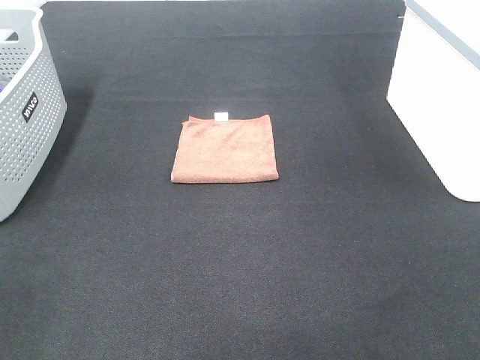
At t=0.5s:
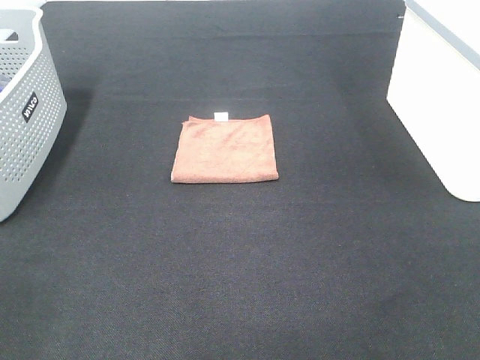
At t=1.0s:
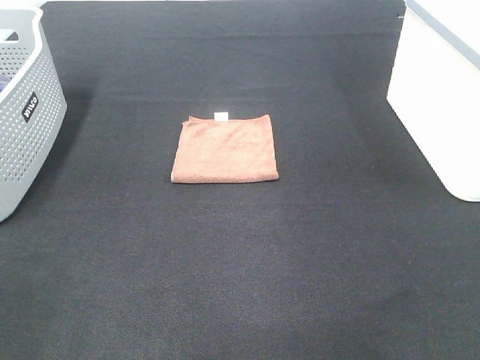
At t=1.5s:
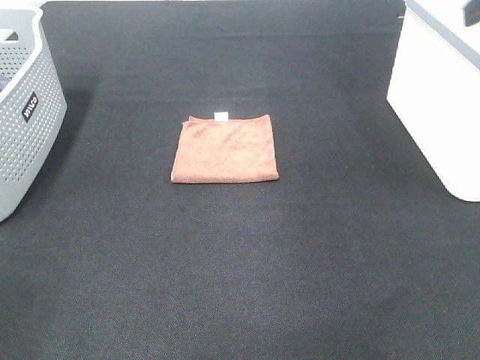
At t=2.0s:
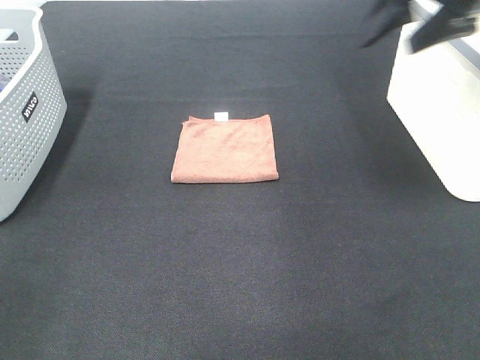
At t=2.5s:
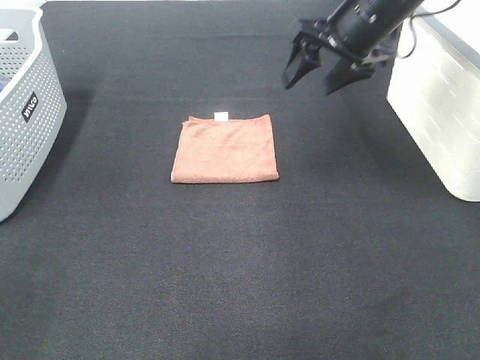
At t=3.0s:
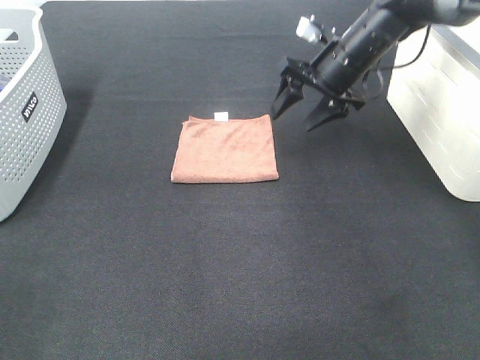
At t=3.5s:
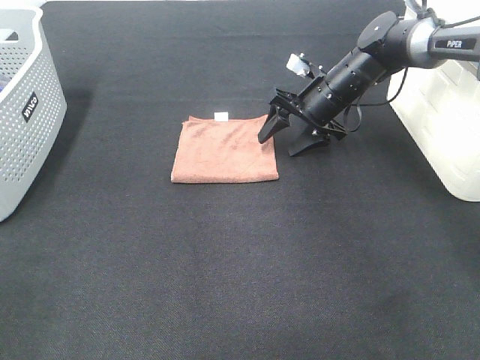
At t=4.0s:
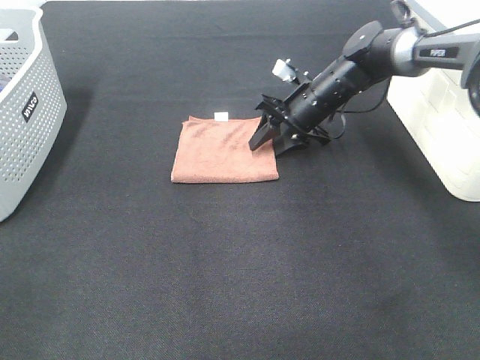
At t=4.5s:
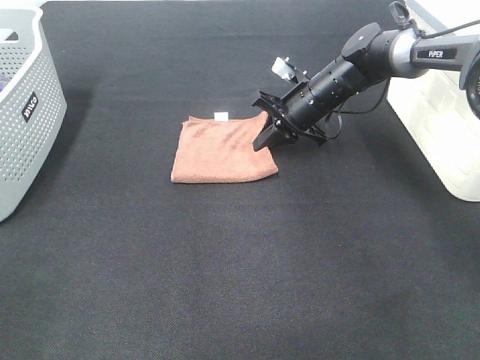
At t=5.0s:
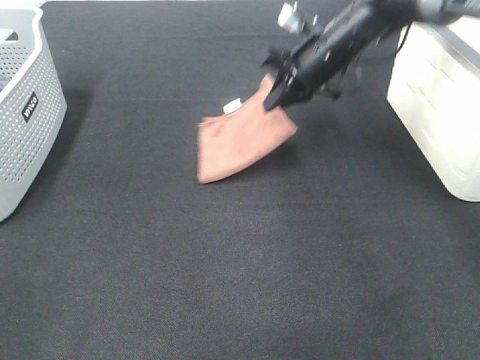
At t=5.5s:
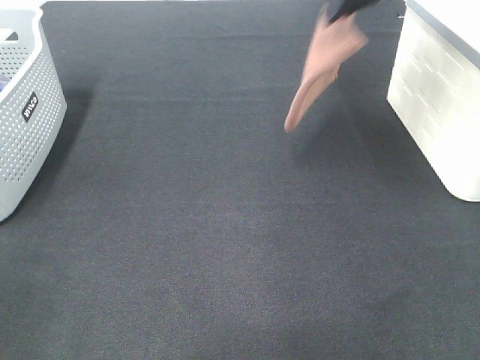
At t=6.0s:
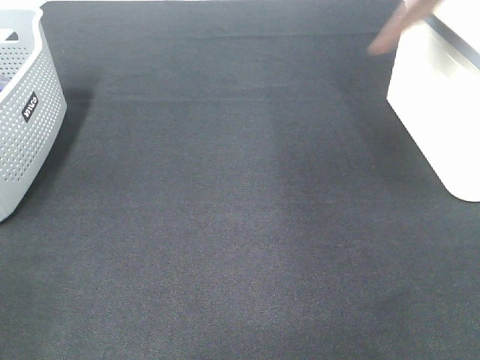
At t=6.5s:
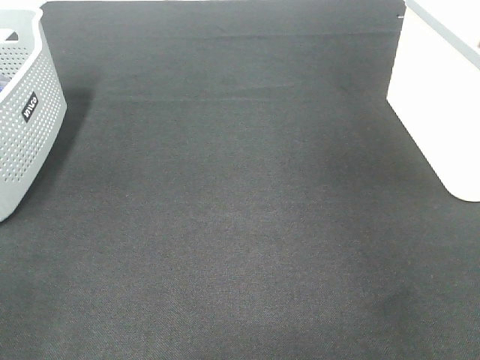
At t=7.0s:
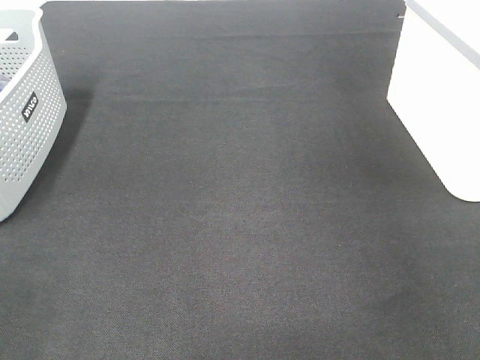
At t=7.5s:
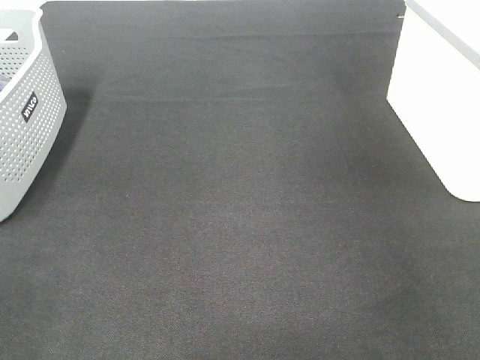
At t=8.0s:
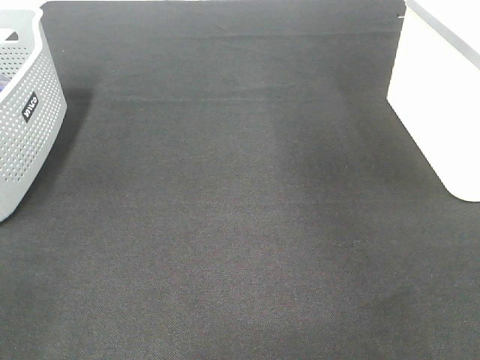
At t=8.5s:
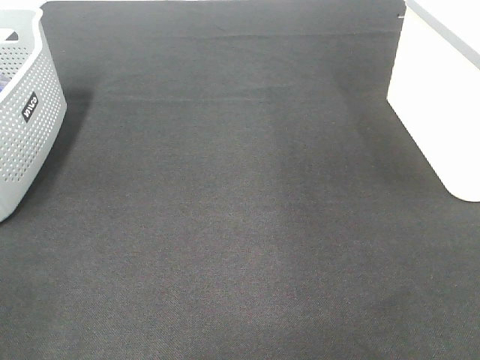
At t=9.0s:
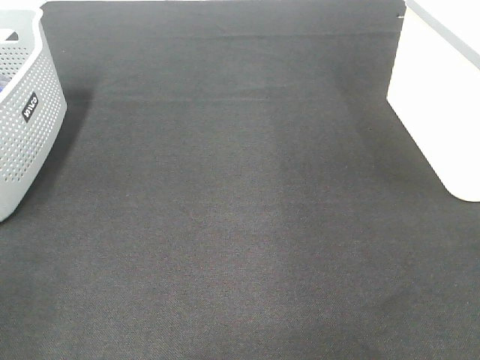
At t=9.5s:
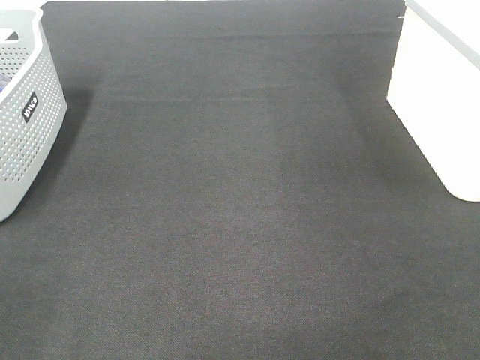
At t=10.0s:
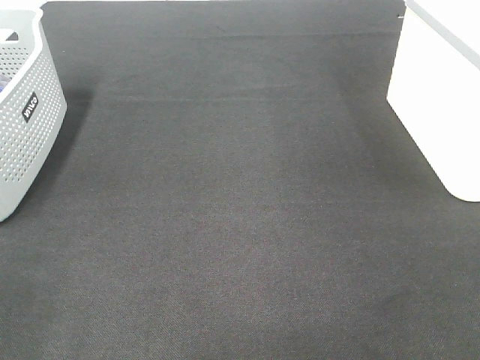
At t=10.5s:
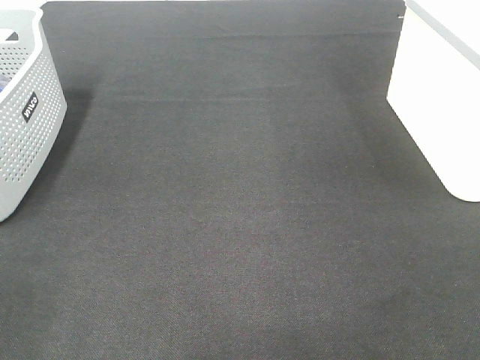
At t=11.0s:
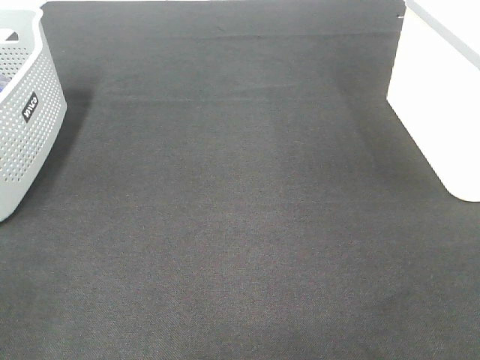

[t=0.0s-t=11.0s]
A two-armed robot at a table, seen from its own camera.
Step, t=0.0s to t=4.5s: Right hand: grab the folded brown towel.
Step, t=5.0s to t=7.5s: Right hand: place the brown towel in right basket.
t=0.0s to t=2.0s: The right gripper moves forward, some 35 cm.
t=2.0s to t=3.5s: The right gripper moves downward and forward, some 25 cm.
t=3.5s to t=5.5s: The right gripper is displaced upward by roughly 25 cm, and closes.
t=5.5s to t=7.5s: The right gripper shifts roughly 20 cm to the right, and opens up.

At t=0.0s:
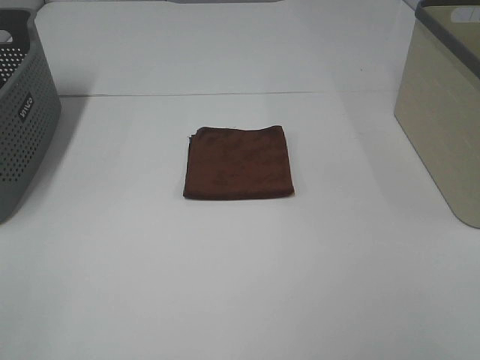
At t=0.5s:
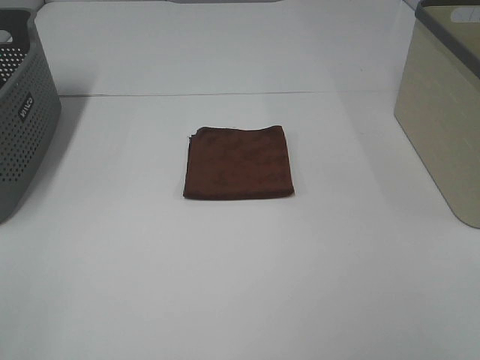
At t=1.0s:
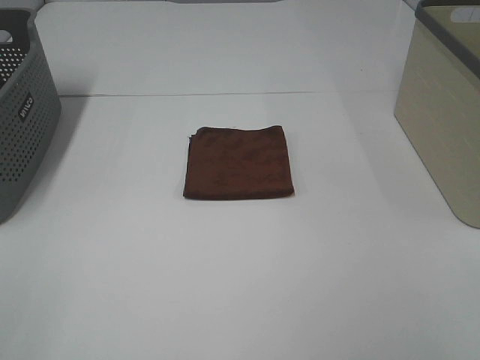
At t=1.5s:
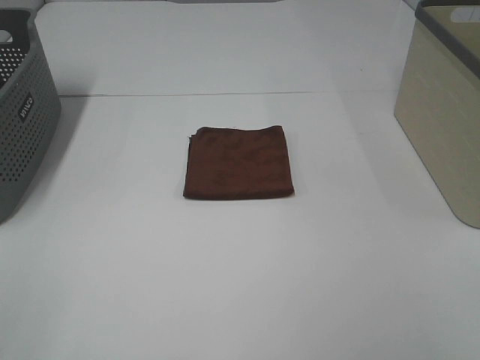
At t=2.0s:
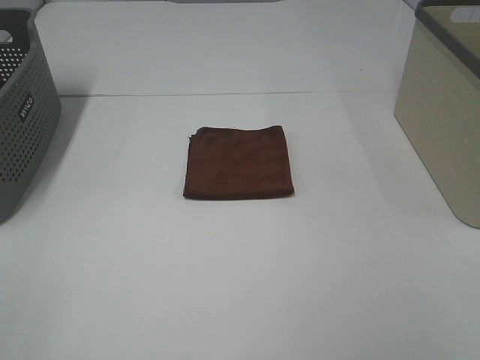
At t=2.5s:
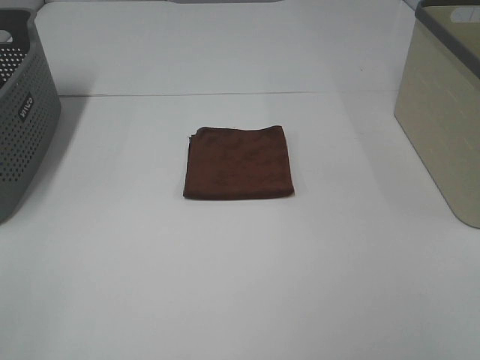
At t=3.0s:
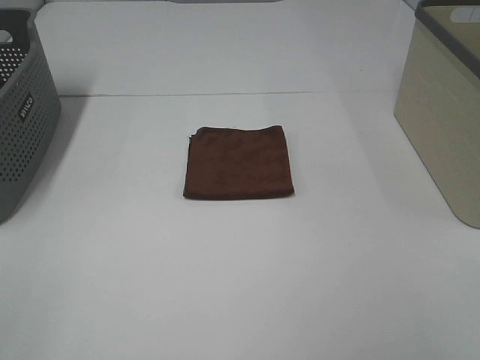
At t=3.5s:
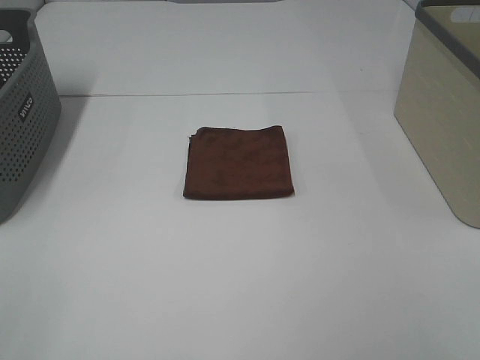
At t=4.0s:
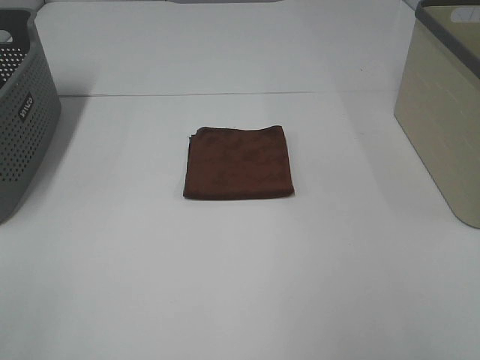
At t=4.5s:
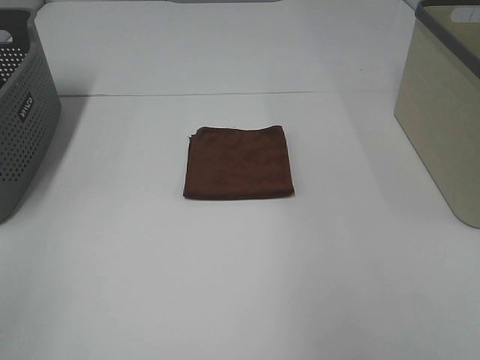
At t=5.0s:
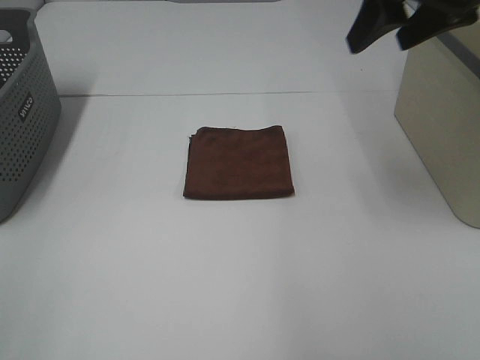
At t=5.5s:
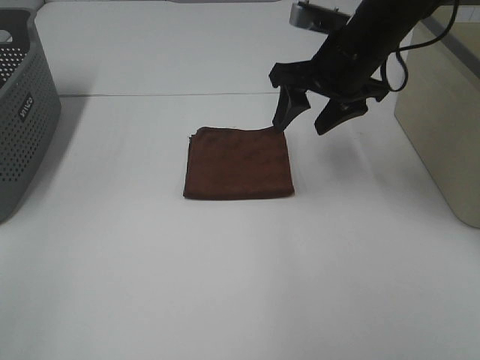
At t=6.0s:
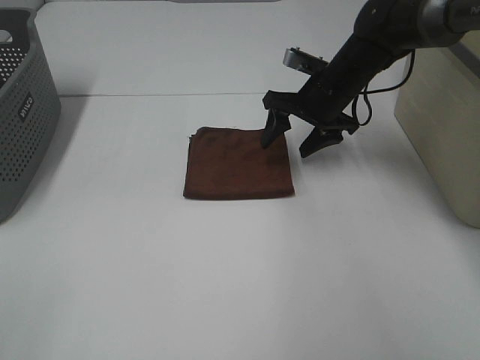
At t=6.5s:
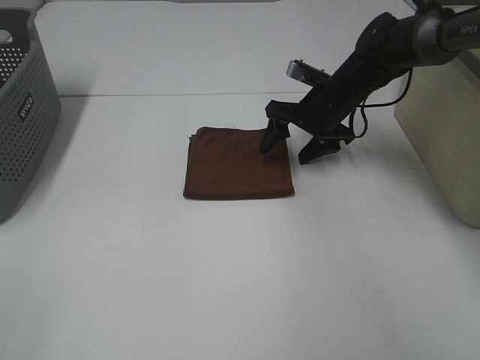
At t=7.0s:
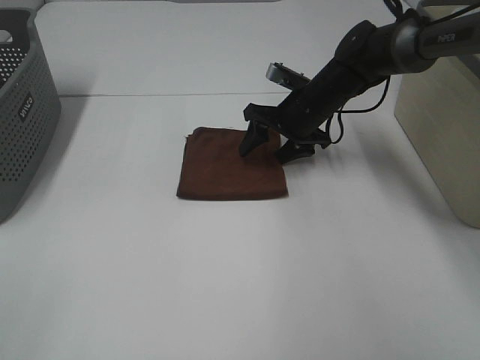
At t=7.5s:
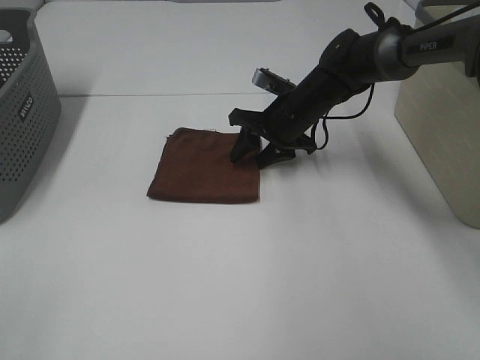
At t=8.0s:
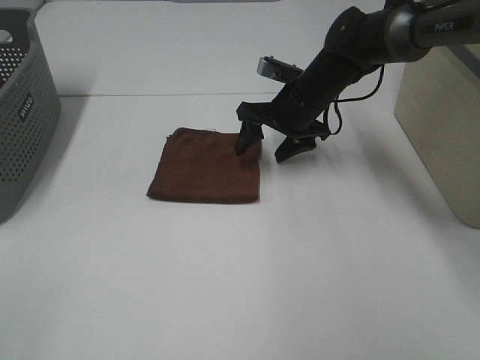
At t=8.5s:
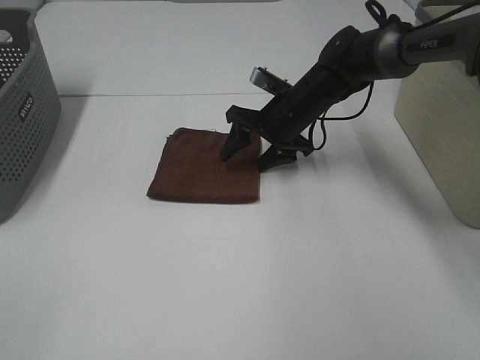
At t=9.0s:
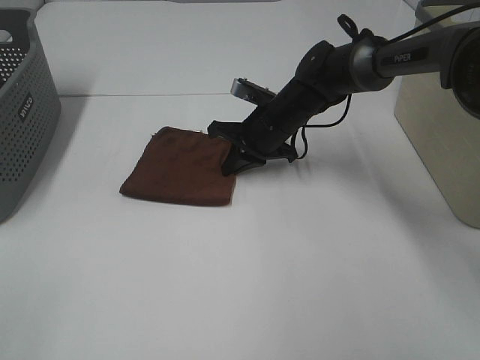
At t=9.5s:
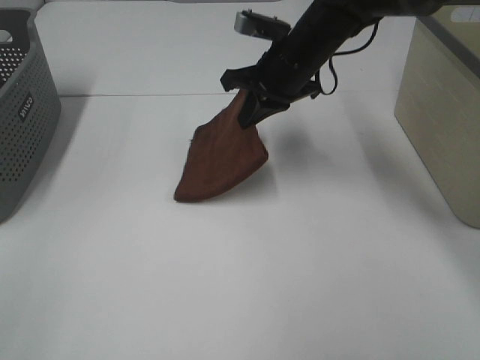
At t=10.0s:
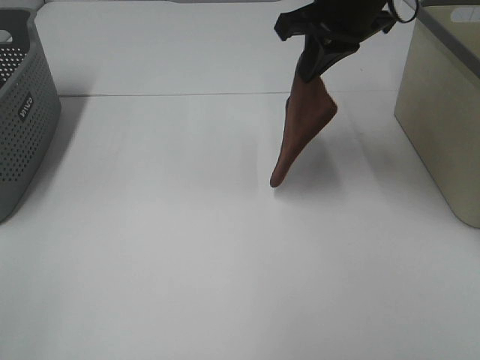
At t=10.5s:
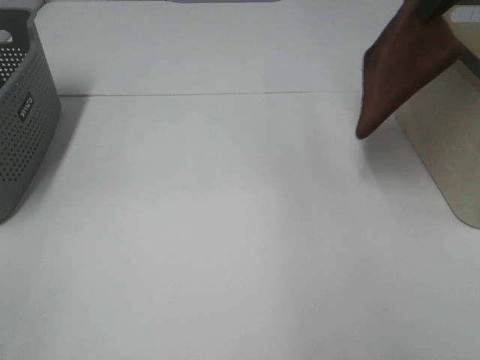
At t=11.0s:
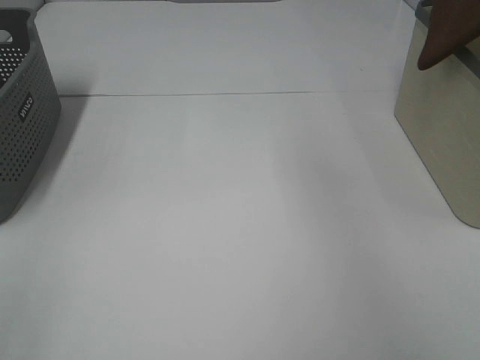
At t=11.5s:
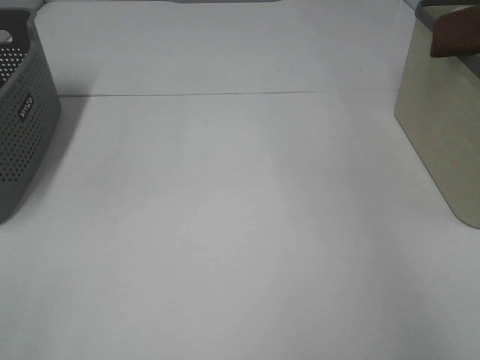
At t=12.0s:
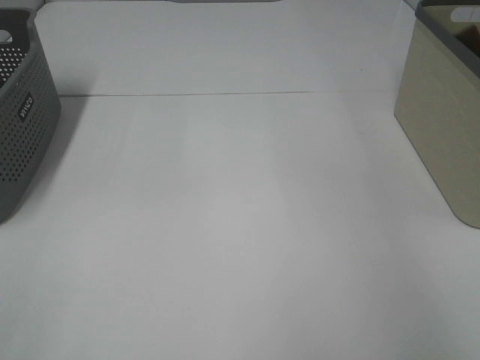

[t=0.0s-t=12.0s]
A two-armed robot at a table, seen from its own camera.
Step, t=0.0s to t=9.0s: Right hand: grab the folded brown towel.
t=0.0s to t=2.0s: Both grippers stay about where they are.
t=4.0s to t=6.0s: The right gripper goes some 40 cm forward and downward.
t=8.0s to t=10.0s: The right gripper moves upward, some 15 cm, and closes up.
t=10.0s to t=12.0s: The right gripper heads to the right, covering some 30 cm, and opens up.

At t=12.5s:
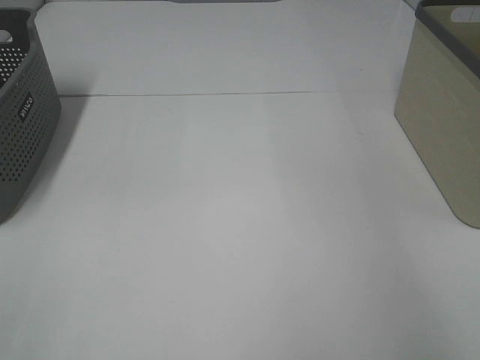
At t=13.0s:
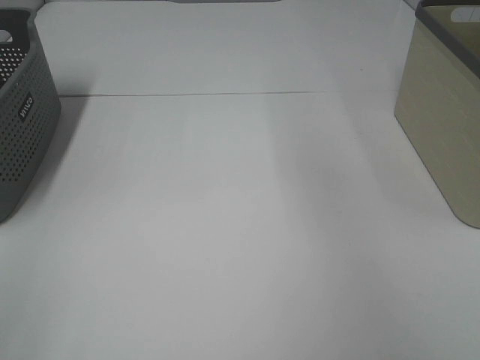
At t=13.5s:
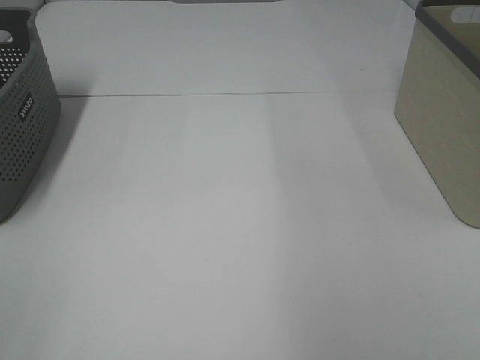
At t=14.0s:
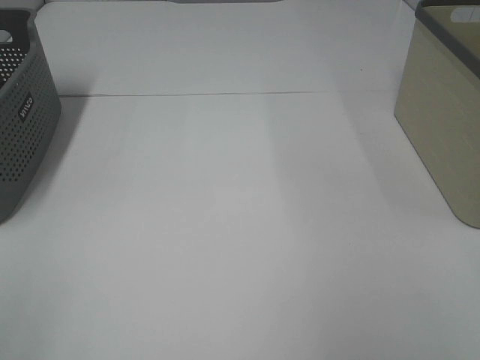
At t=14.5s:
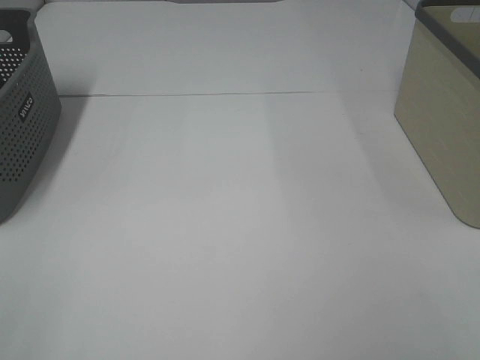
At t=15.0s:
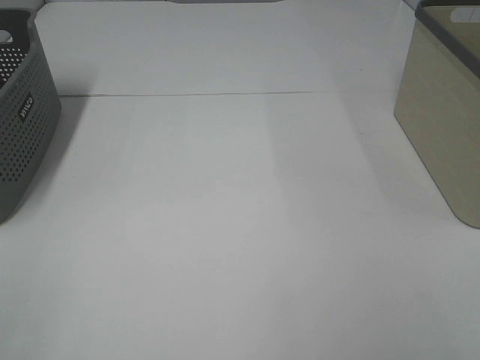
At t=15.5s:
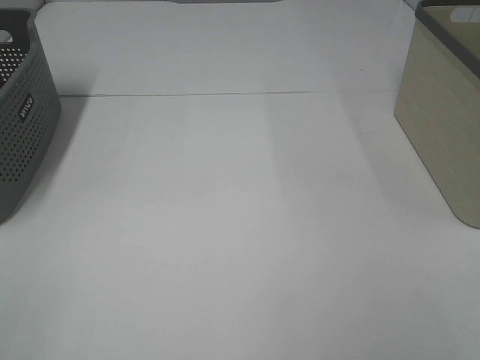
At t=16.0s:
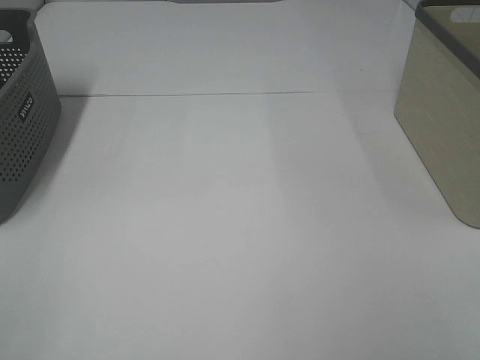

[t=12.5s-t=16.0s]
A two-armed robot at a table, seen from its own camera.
t=14.5s to t=16.0s: Both grippers stay about where they are.
